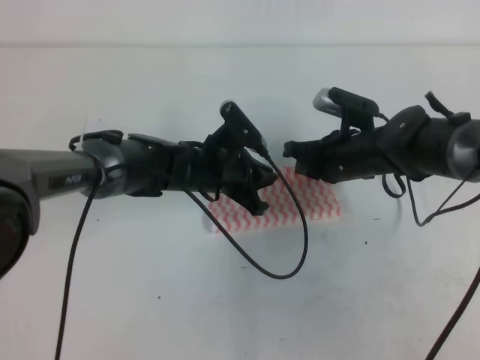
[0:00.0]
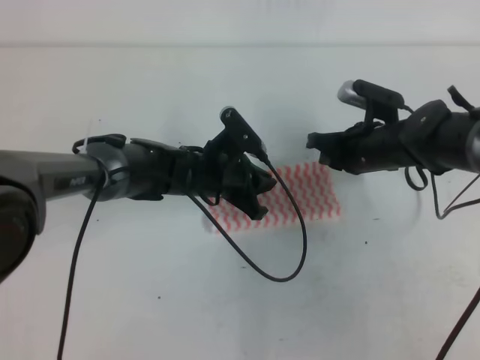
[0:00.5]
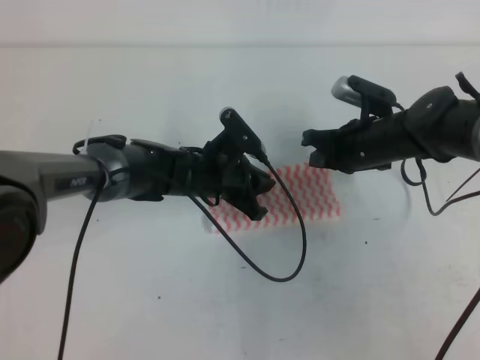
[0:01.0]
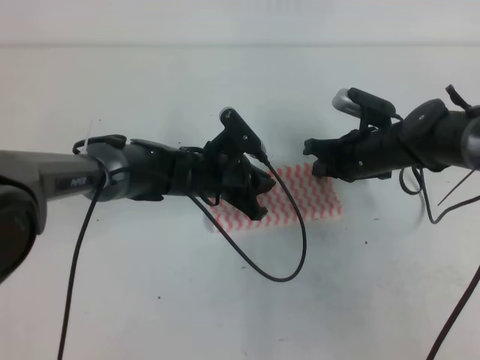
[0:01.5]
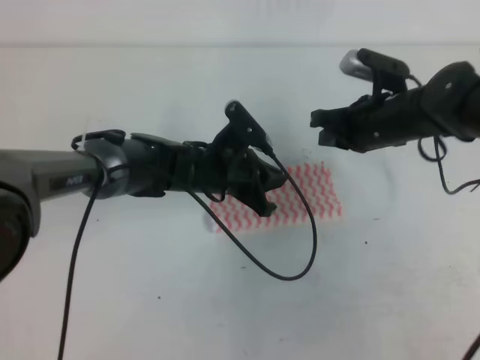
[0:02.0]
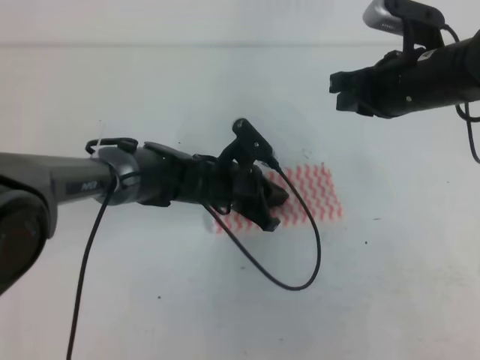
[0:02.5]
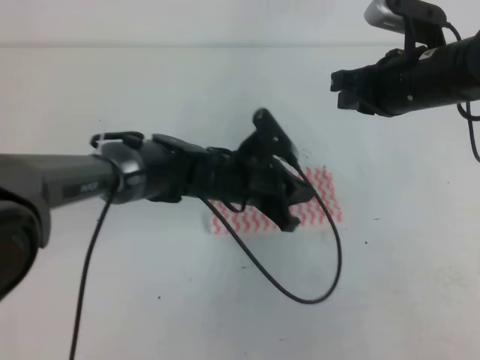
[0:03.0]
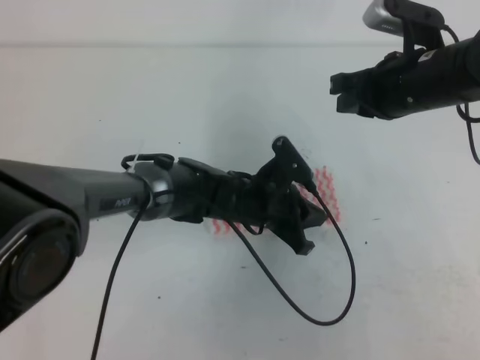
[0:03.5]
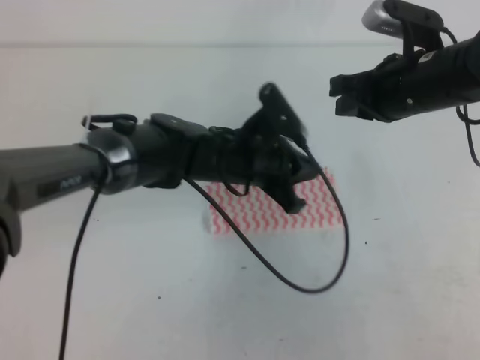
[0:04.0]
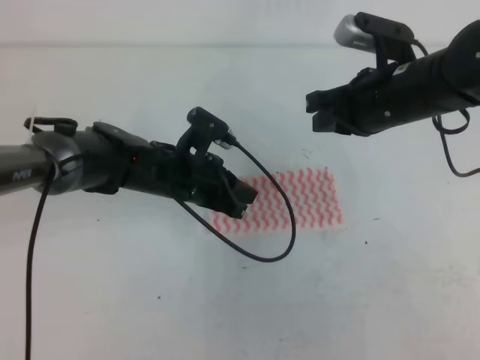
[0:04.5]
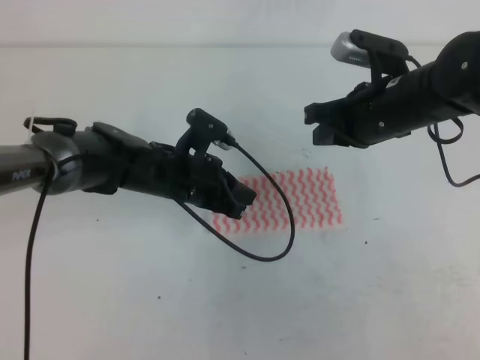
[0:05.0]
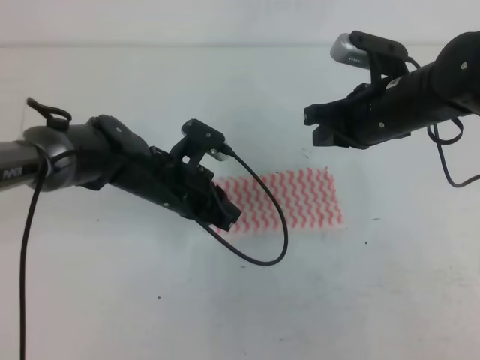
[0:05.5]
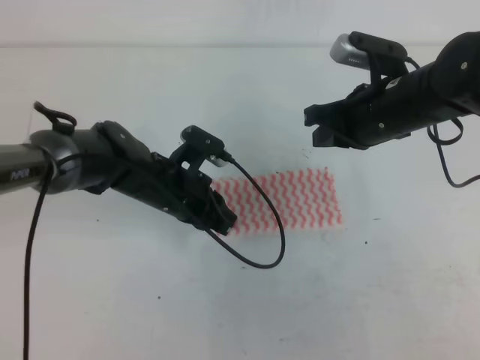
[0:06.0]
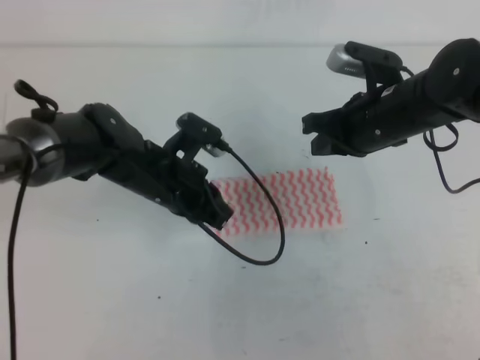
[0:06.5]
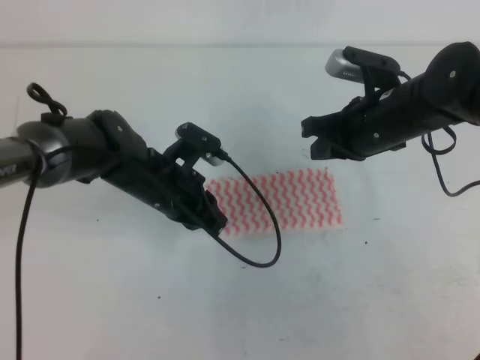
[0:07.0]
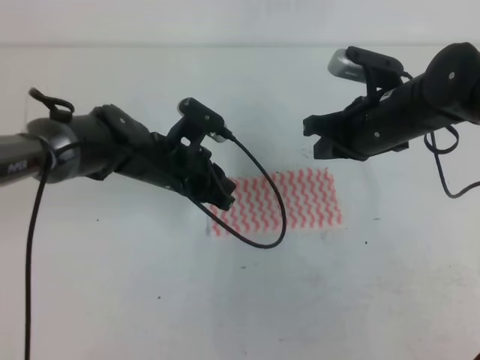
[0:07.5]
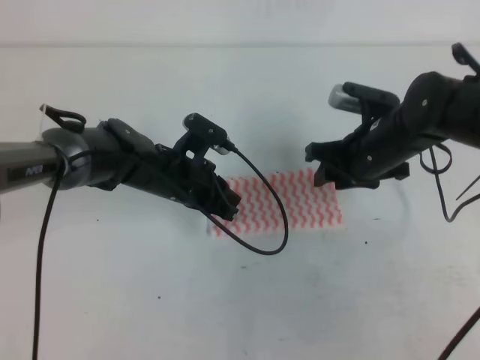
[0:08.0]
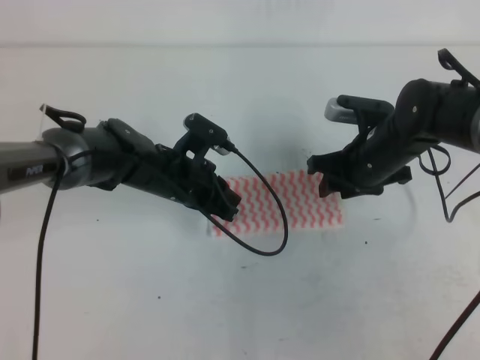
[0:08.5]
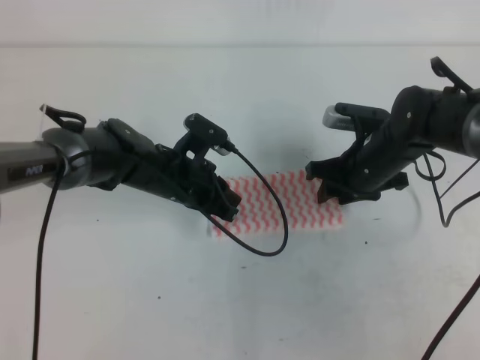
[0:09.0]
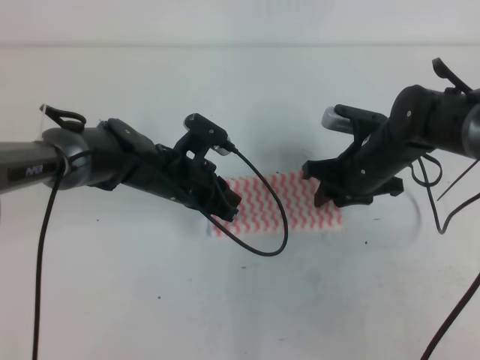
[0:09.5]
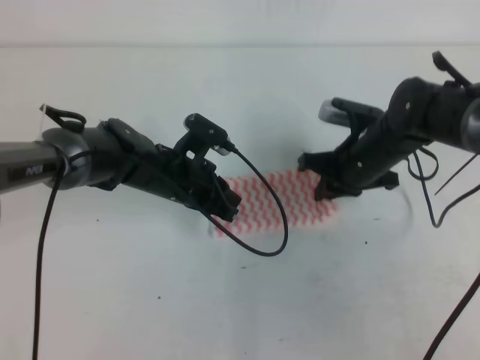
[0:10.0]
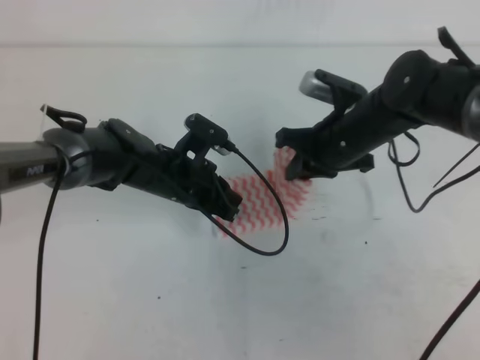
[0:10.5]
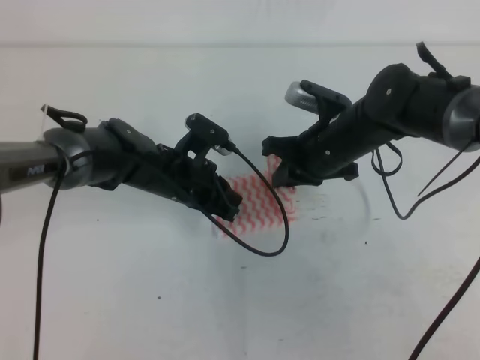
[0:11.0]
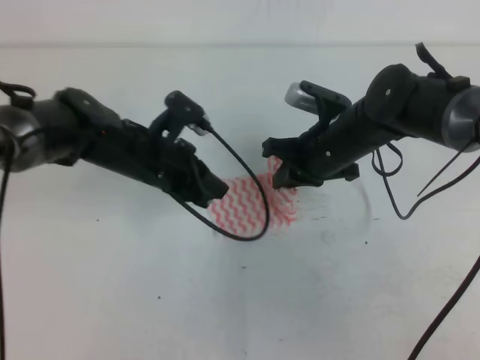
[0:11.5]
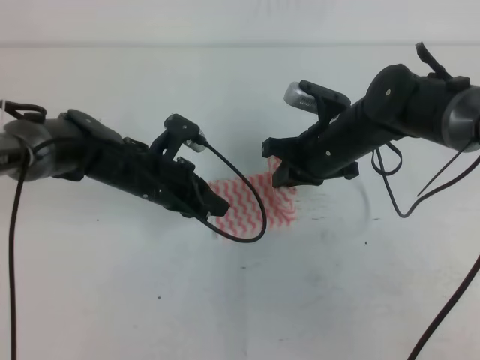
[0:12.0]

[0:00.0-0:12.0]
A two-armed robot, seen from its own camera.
0:00.0 to 0:02.0: The right gripper changes place by approximately 5 cm.
0:02.0 to 0:04.0: The left gripper changes place by roughly 5 cm. The right gripper shifts about 10 cm upward.
0:04.0 to 0:06.0: The left gripper shifts some 10 cm to the left.
0:06.0 to 0:08.0: The right gripper travels downward by roughly 5 cm, and opens.
0:08.0 to 0:10.0: The right gripper closes its fingers.

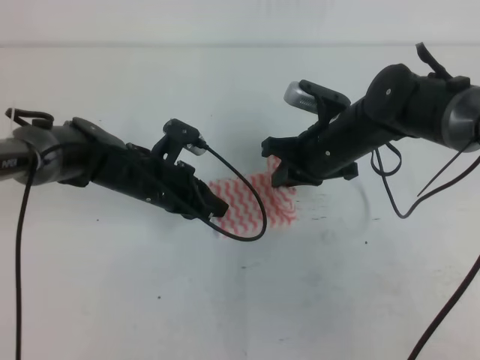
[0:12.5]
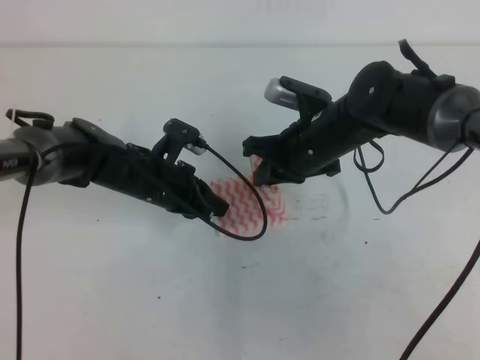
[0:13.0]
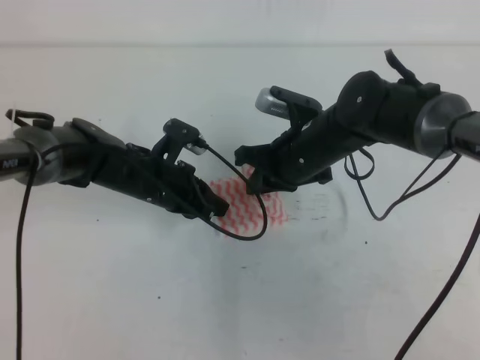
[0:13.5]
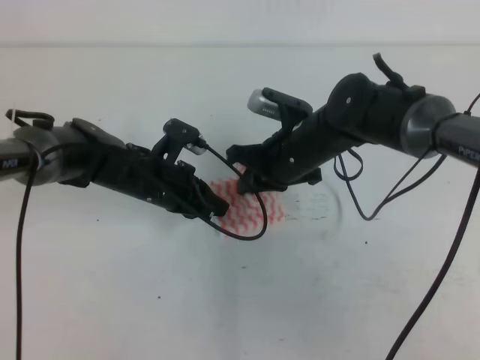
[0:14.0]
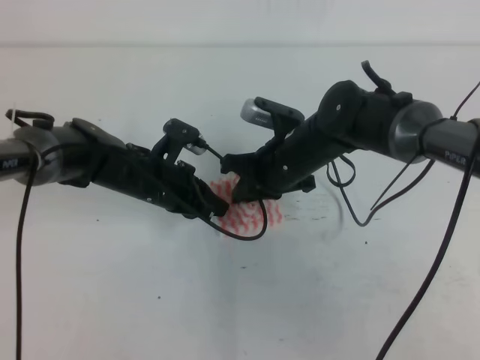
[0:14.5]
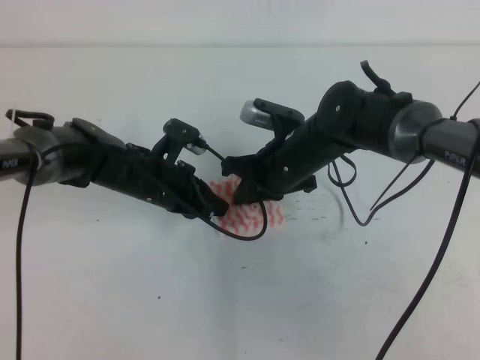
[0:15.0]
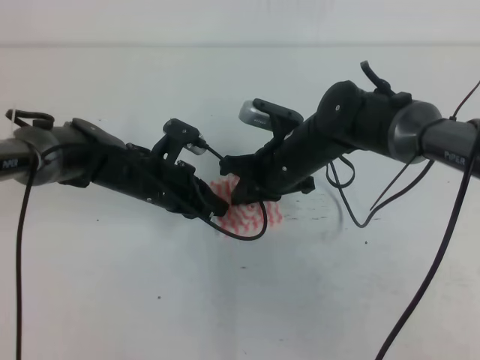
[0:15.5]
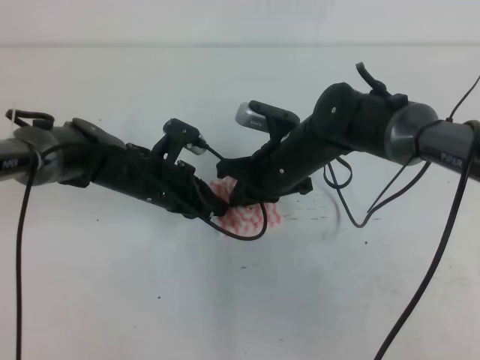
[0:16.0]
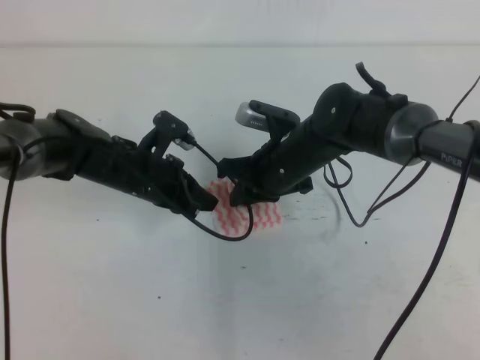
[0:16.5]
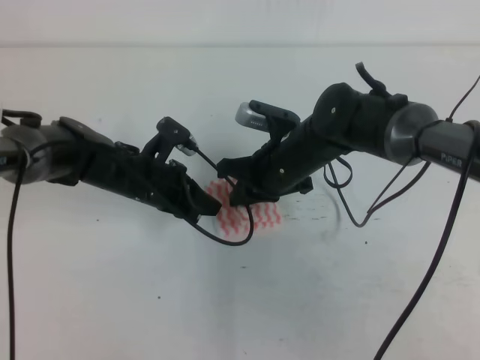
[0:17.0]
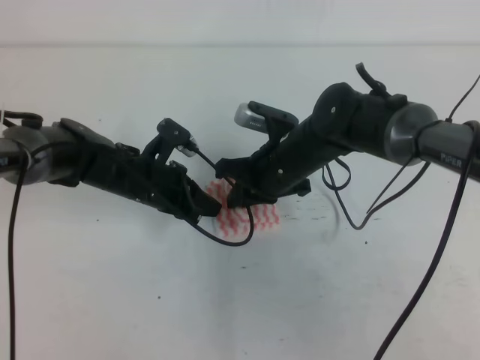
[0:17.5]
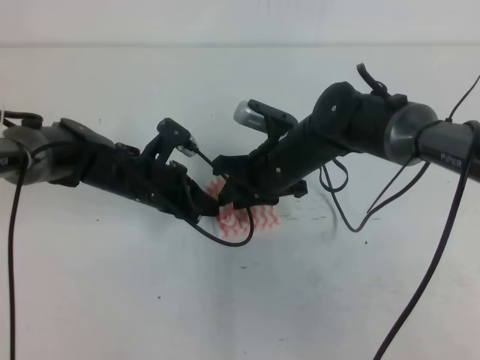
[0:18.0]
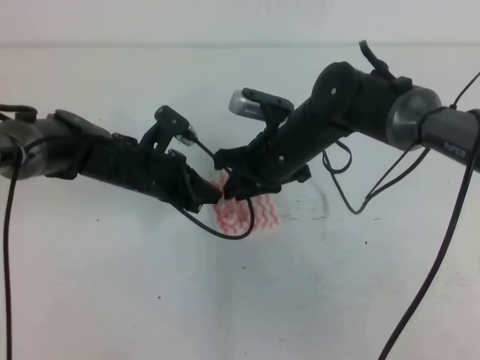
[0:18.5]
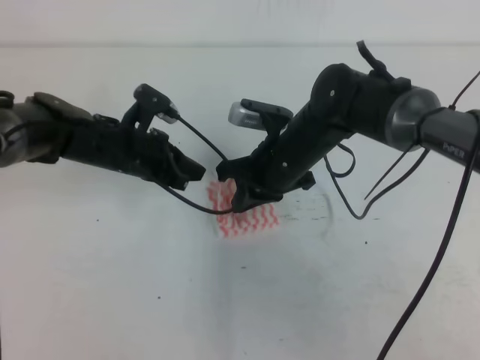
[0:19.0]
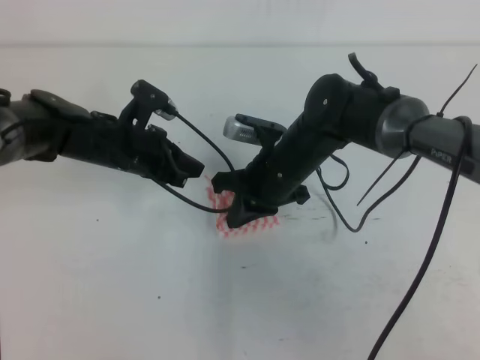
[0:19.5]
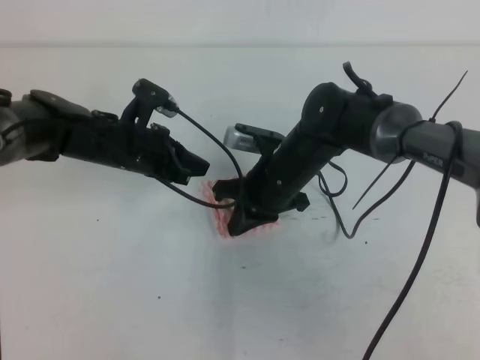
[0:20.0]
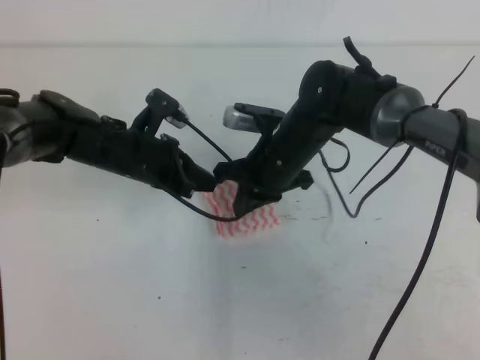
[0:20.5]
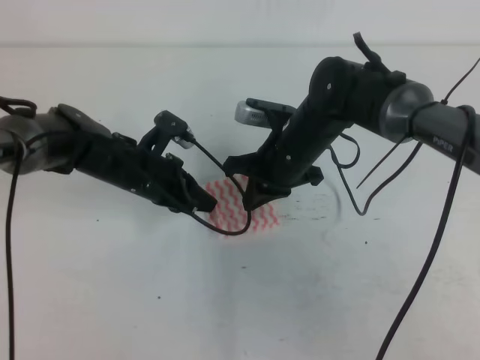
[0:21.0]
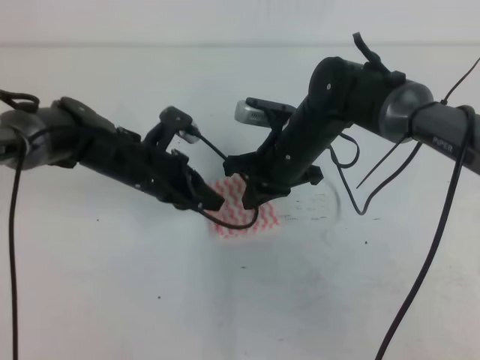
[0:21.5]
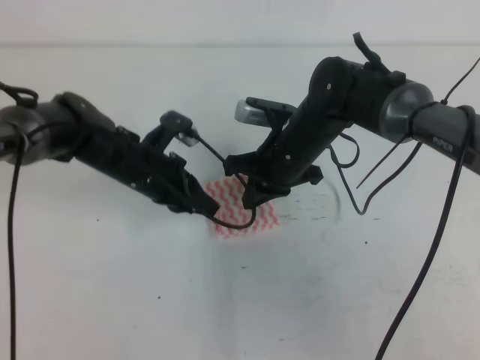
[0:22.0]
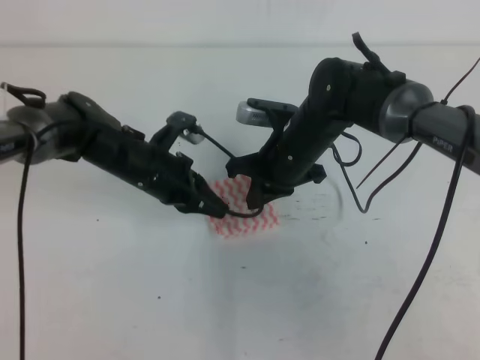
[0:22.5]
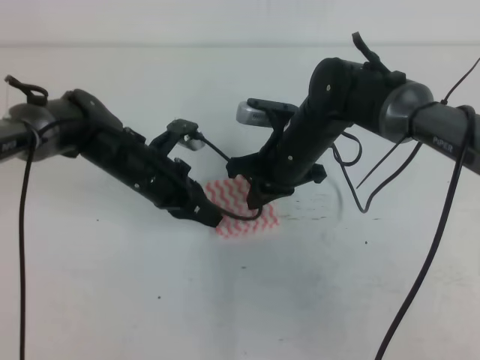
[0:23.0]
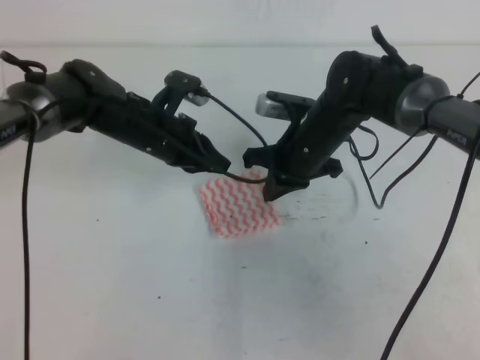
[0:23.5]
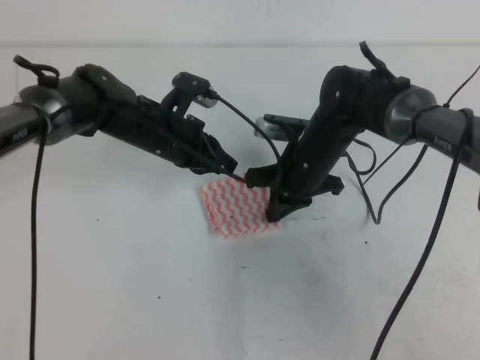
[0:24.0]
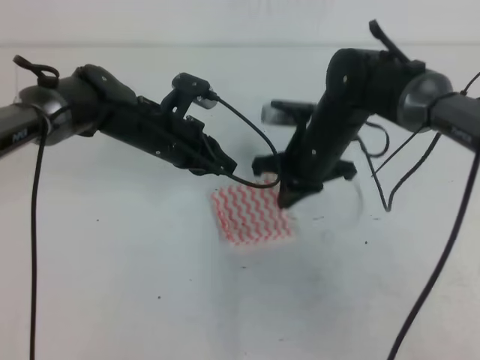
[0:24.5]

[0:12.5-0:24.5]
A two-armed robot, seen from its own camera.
0:12.5 to 0:14.5: The right gripper travels to the left by approximately 5 cm.
0:14.5 to 0:22.5: The grippers move only a little.

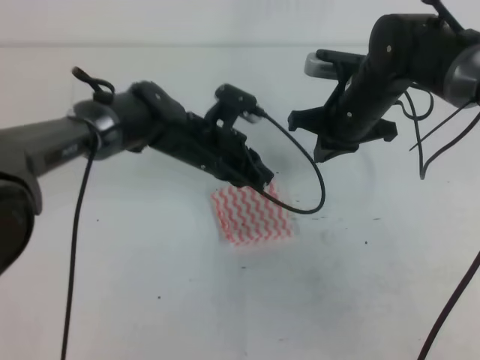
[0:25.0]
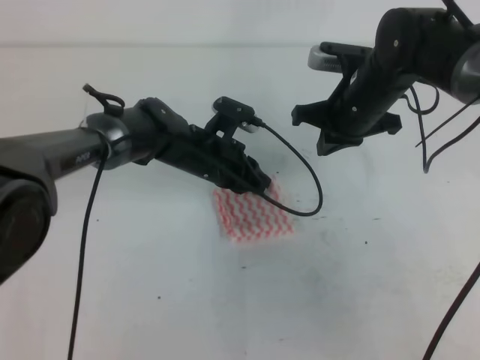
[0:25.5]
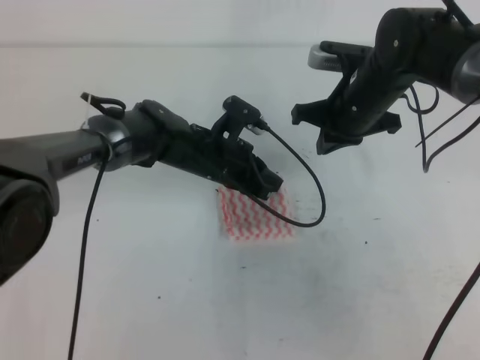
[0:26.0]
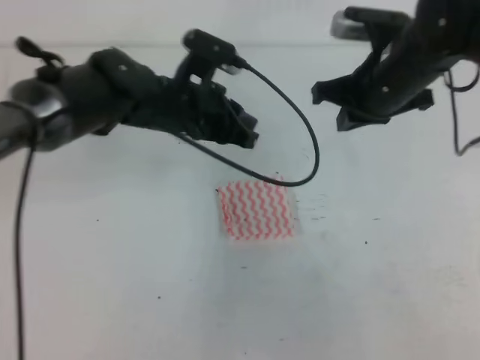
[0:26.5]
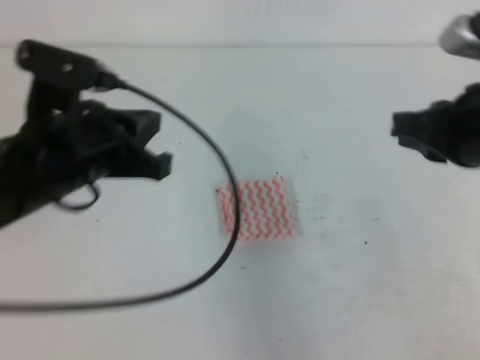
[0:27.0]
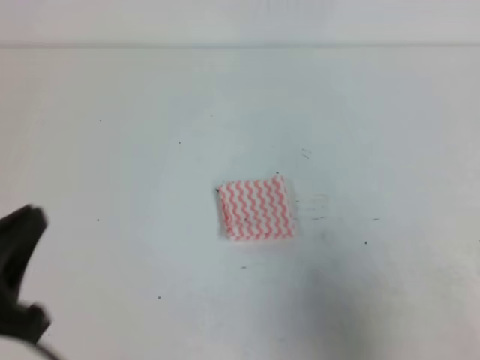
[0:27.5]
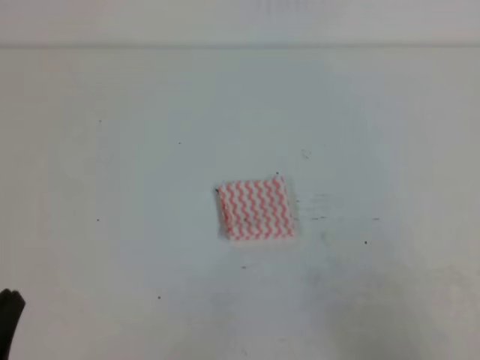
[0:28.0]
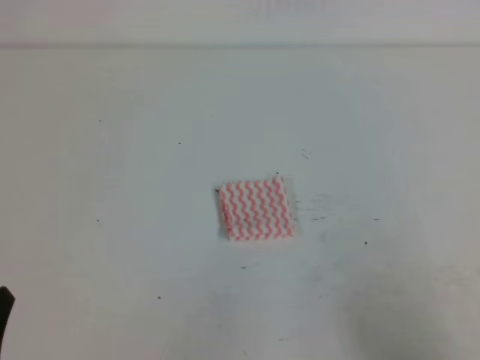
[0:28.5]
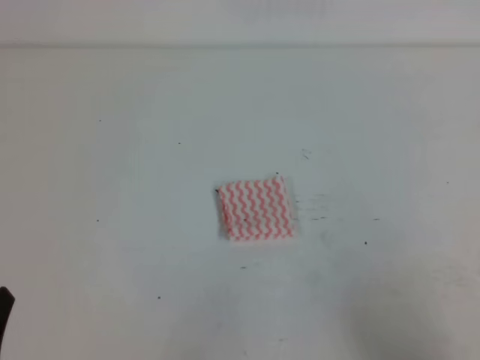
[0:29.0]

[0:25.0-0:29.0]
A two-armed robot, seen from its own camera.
0:25.0 to 0:27.0: The left gripper travels backward, upward and to the left by some 25 cm. Meanwhile the right gripper moves backward, upward and to the right, some 20 cm.
0:27.0 to 0:29.0: The left gripper heads backward, to the left and downward, covering approximately 25 cm. Meanwhile the right gripper travels backward, downward and to the right by about 25 cm.
